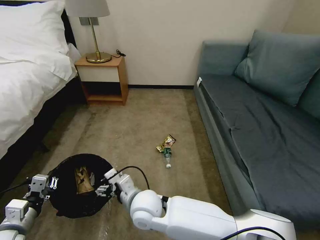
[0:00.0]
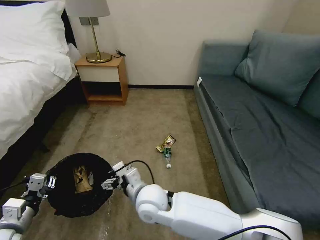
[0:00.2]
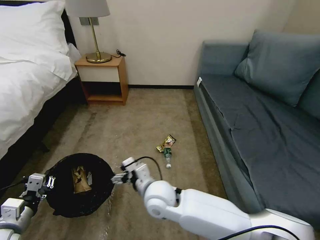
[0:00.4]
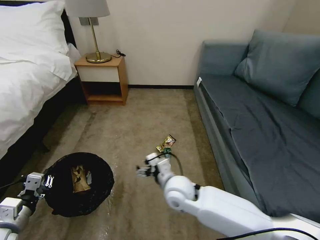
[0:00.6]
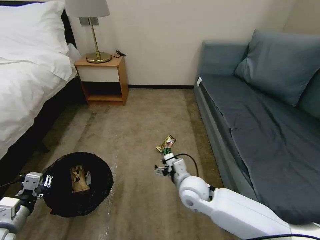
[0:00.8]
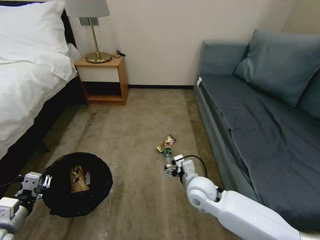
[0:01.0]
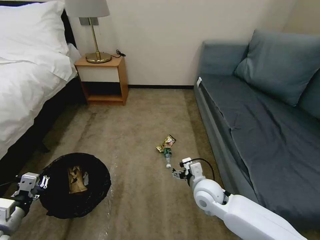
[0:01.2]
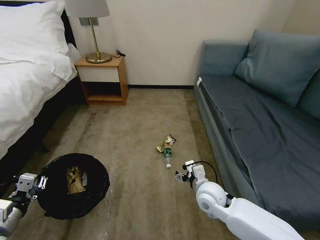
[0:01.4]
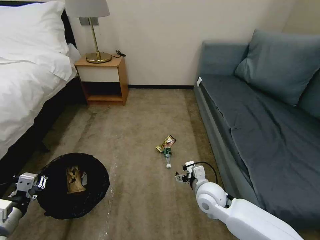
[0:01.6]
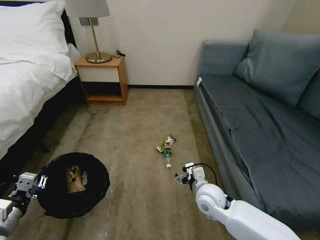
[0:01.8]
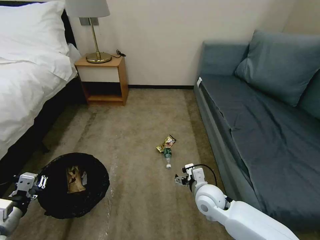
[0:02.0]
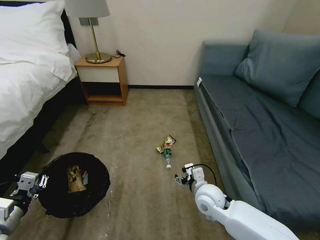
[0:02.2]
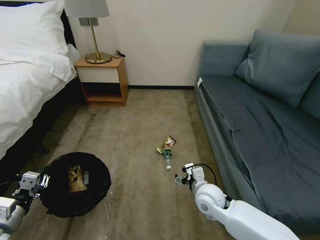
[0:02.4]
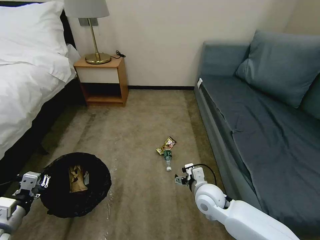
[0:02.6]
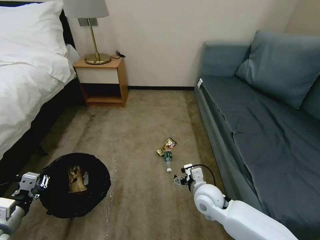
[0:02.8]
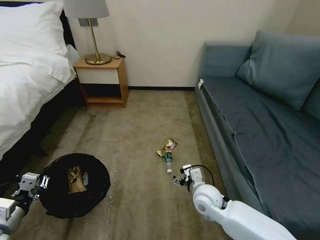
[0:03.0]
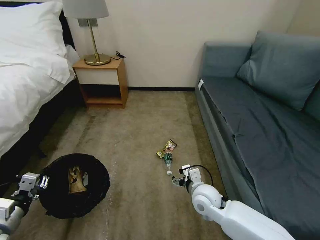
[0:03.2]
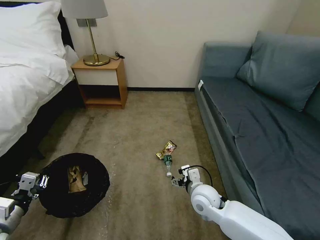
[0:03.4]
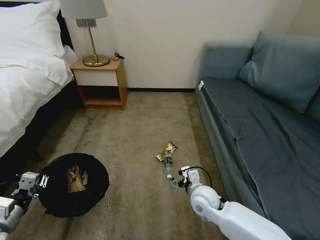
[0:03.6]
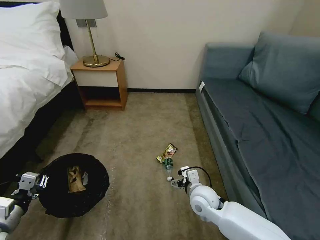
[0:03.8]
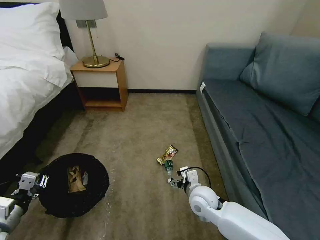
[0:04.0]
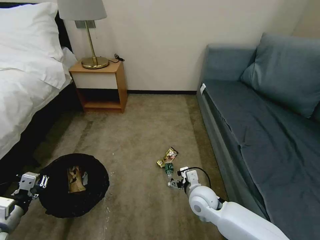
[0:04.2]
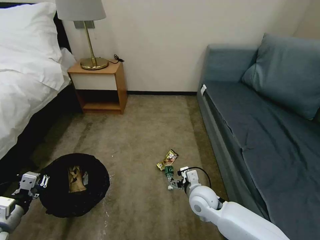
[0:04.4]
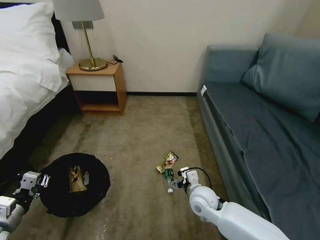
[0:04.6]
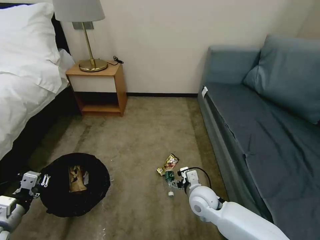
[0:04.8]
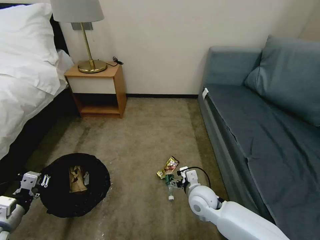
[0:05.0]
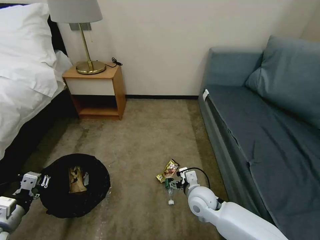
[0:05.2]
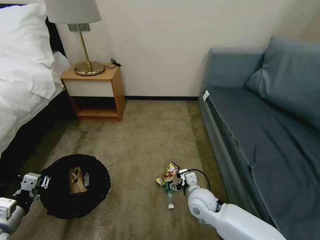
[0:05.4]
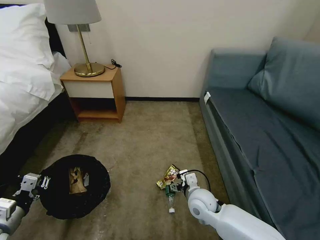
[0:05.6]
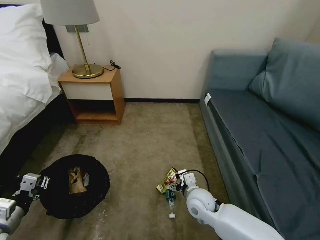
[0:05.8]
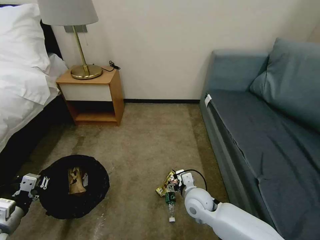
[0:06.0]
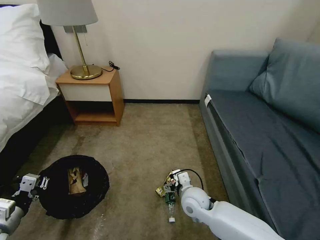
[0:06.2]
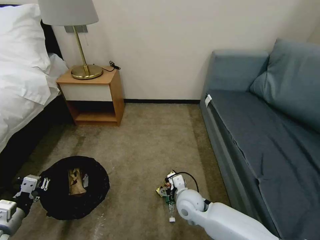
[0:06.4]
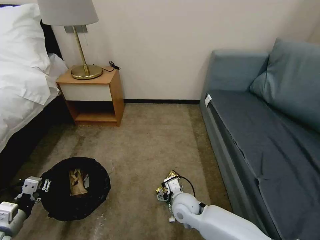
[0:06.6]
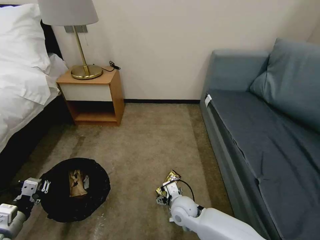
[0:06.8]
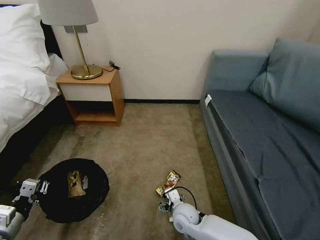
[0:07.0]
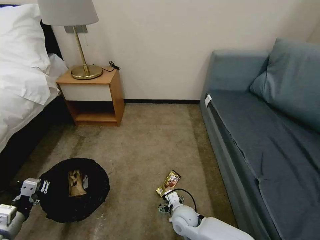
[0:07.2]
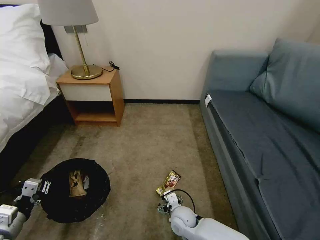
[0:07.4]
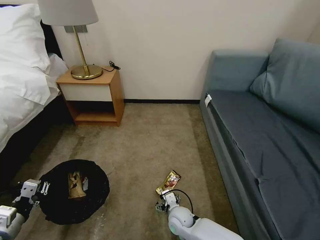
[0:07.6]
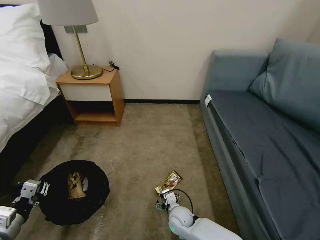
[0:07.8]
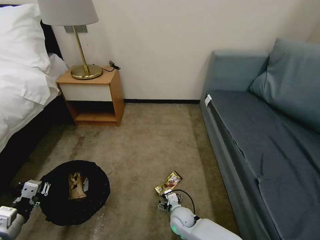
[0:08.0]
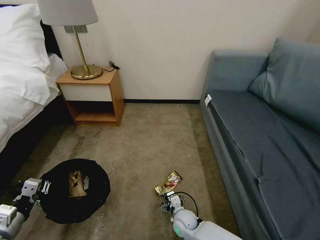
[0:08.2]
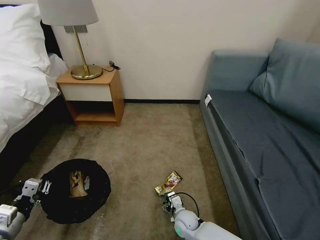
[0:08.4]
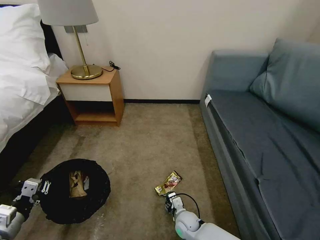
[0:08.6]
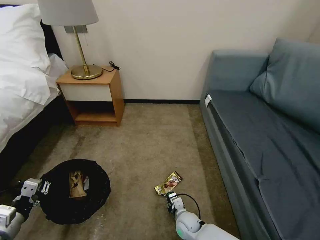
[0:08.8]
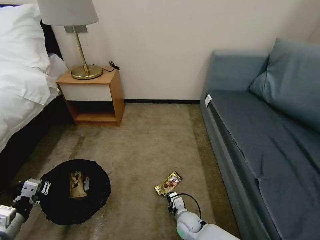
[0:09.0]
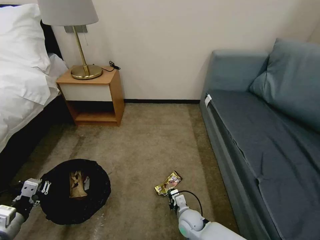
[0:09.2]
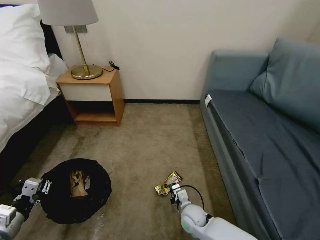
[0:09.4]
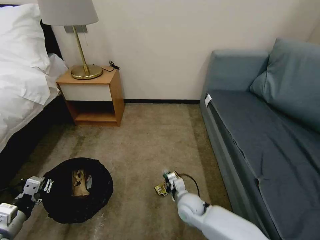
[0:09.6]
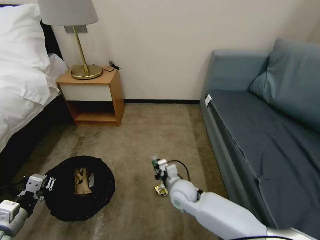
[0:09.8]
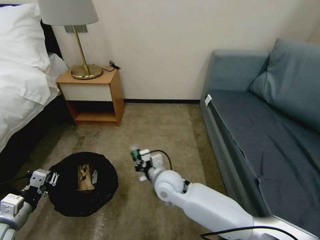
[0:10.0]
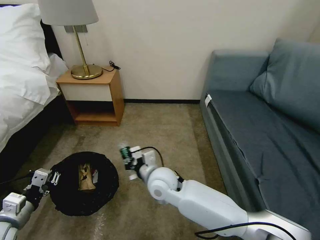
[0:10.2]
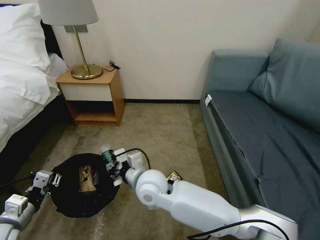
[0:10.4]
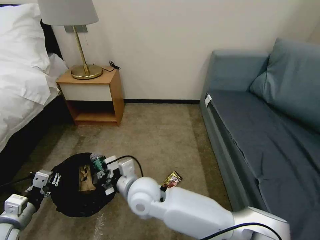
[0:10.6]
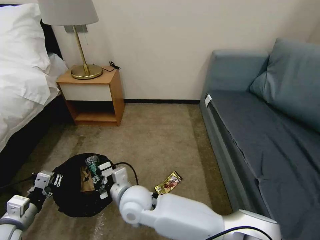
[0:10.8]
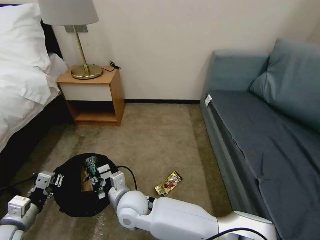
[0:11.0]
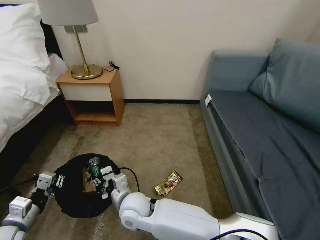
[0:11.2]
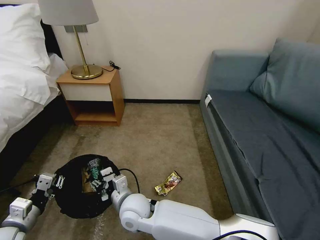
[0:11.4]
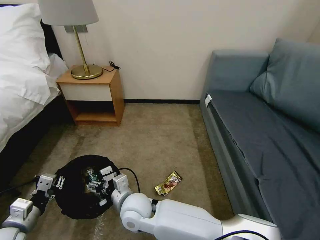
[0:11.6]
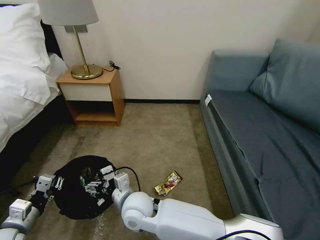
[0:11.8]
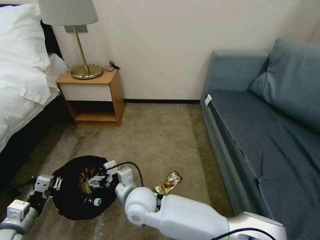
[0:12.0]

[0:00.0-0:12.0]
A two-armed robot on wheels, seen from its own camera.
Task of the whole recording: Pick up the trash bin, then pick up the garbage on the floor and place it into the trash bin.
0:00.0 to 0:01.6: The right gripper shifts some 20 cm to the right.
0:01.6 to 0:04.4: The grippers stay close to where they were, moving slightly.
0:06.0 to 0:07.6: The right gripper is displaced downward and to the left by about 15 cm.
0:07.6 to 0:09.0: The right gripper shifts by about 5 cm, and closes.
0:09.0 to 0:10.4: The right gripper is displaced upward and to the left by some 30 cm.
0:10.4 to 0:12.0: The right gripper opens up.

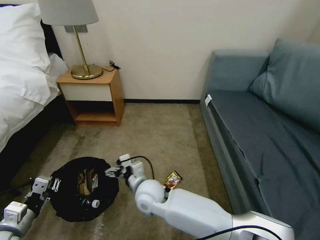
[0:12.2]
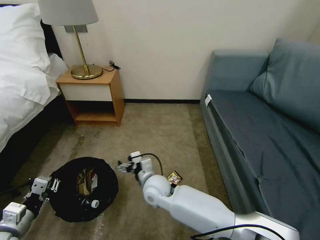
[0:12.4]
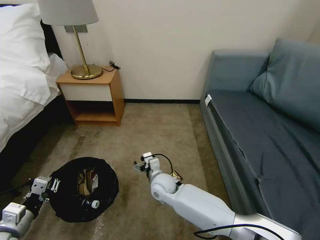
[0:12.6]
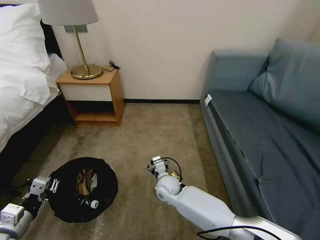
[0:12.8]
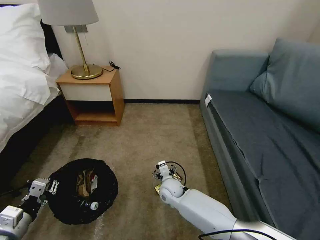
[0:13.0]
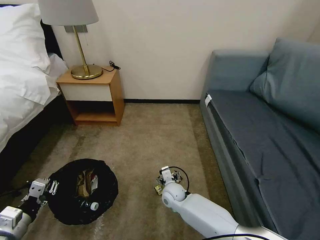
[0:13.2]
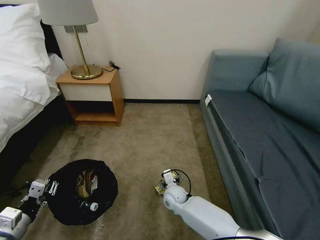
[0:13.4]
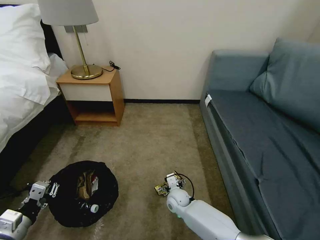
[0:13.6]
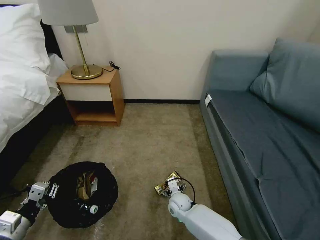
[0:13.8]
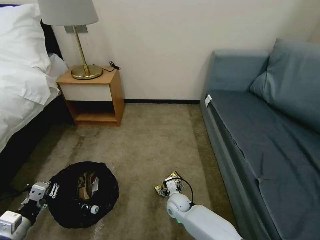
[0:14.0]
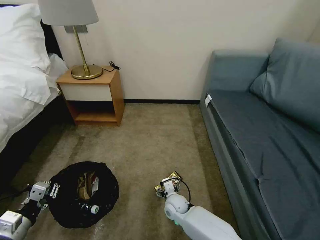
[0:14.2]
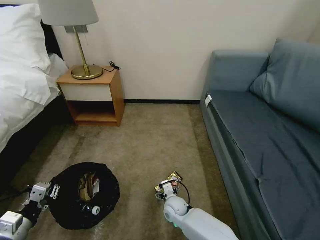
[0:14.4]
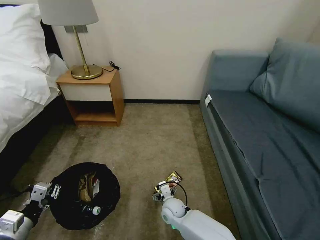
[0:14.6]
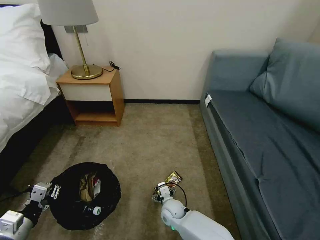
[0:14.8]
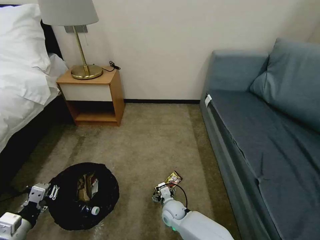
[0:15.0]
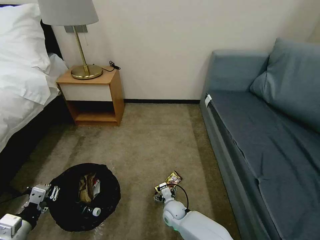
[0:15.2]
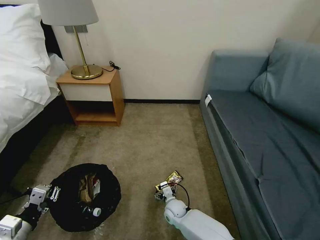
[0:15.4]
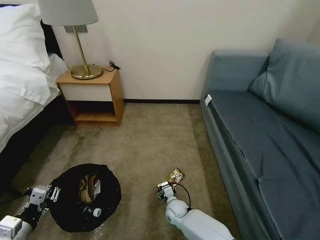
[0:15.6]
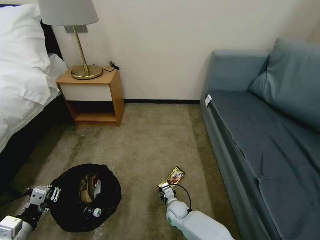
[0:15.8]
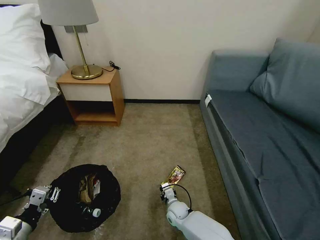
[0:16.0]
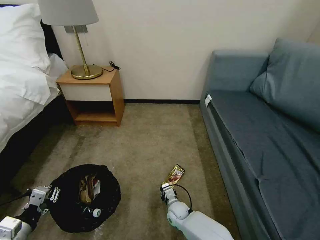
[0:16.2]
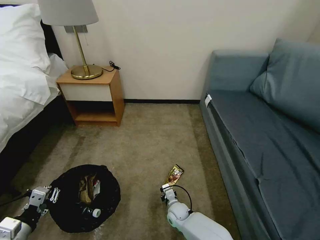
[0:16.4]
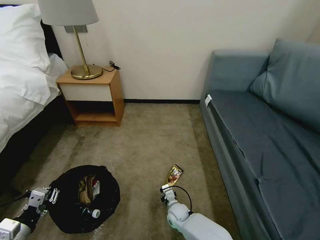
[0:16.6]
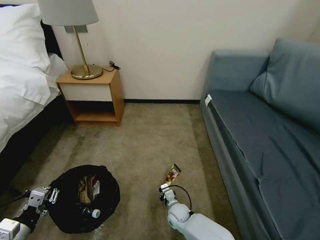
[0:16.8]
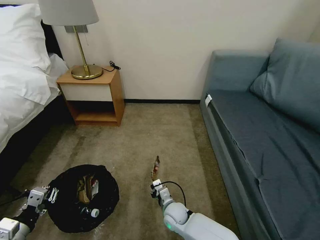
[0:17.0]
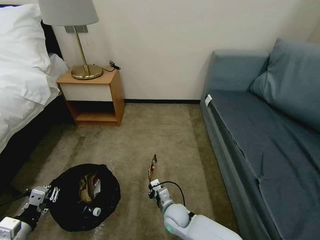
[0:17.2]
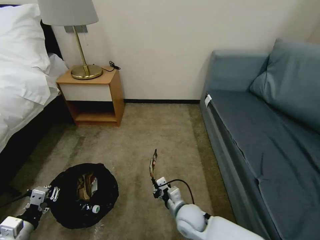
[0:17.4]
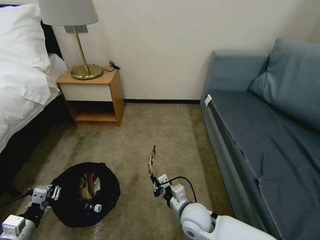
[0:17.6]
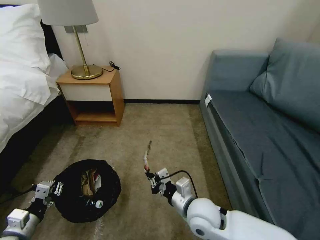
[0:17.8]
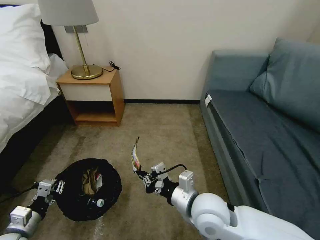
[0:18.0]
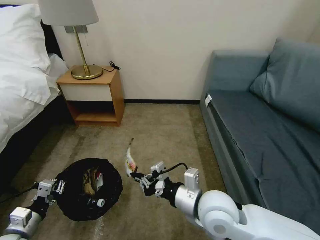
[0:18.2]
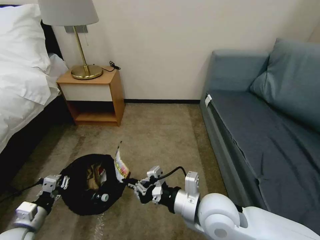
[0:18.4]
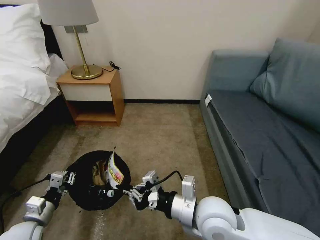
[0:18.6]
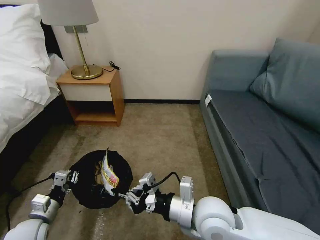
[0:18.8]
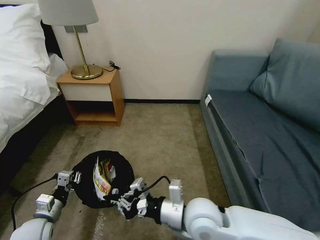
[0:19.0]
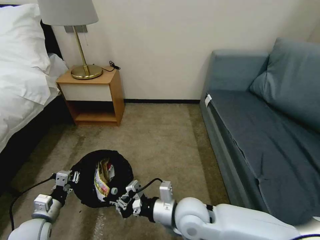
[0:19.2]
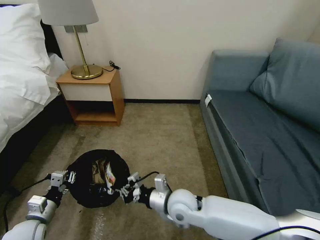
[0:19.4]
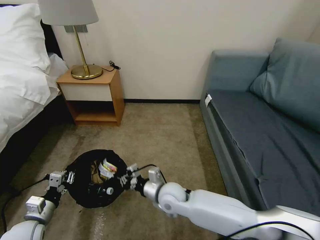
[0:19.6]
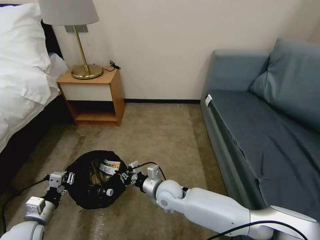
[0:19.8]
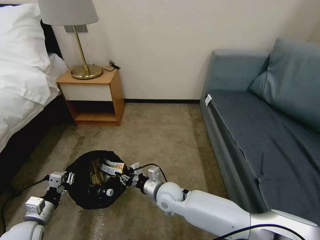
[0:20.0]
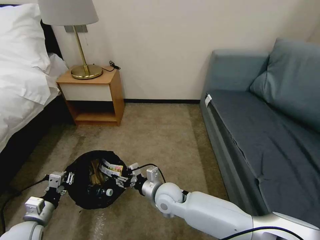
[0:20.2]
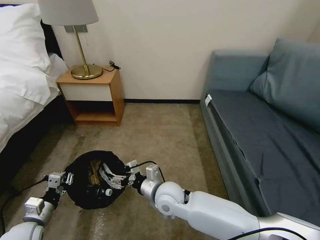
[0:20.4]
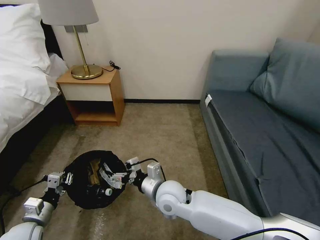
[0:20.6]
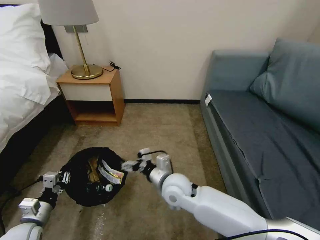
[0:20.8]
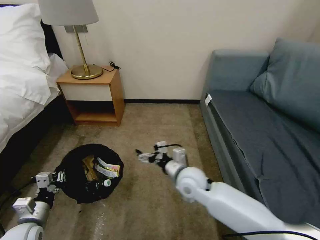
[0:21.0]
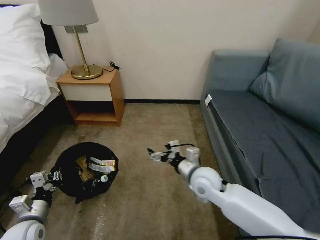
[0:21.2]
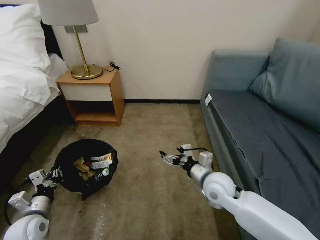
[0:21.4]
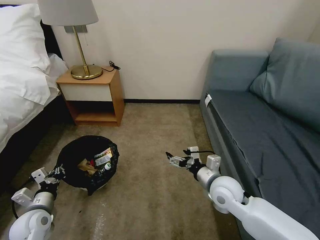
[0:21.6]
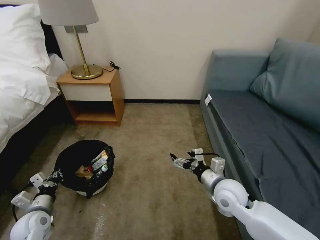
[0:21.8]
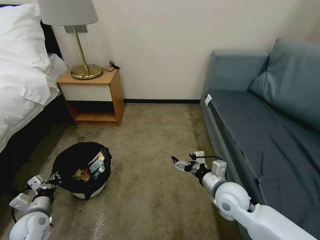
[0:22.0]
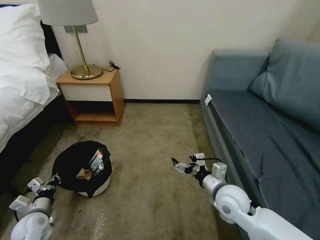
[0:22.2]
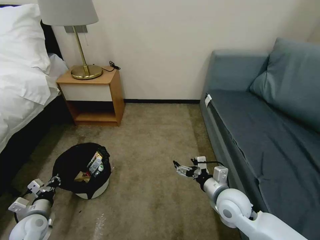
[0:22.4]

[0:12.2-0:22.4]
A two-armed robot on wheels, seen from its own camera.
Task of the whole recording: Pick up the trash bin, then pick up the garbage on the floor and place it into the trash bin.
0:12.2 to 0:13.6: The right gripper shifts roughly 20 cm downward and to the right.
0:13.6 to 0:15.2: The right gripper changes place by some 5 cm.
0:15.2 to 0:16.6: The right gripper closes.
0:16.6 to 0:18.0: The right gripper shifts some 30 cm upward.
0:18.0 to 0:19.4: The right gripper goes some 5 cm downward, while the left gripper ends up roughly 5 cm from where it was.
0:19.4 to 0:21.0: The right gripper heads forward, covering some 10 cm, and opens its fingers.
0:21.0 to 0:22.4: The left gripper shifts about 5 cm downward. Meanwhile the right gripper goes roughly 15 cm to the right and backward.
